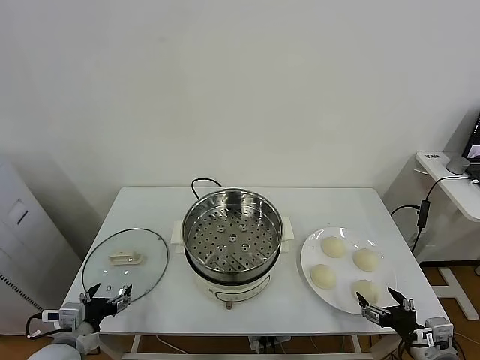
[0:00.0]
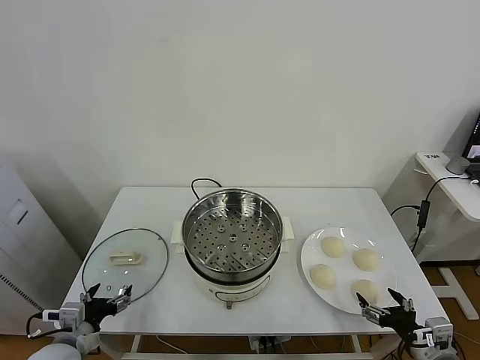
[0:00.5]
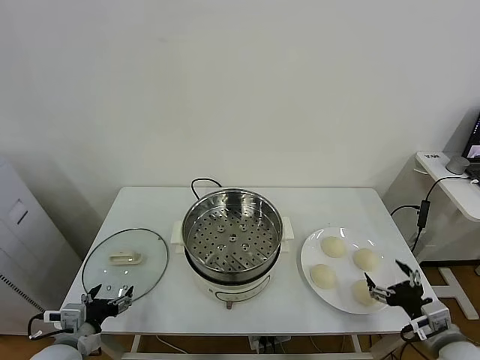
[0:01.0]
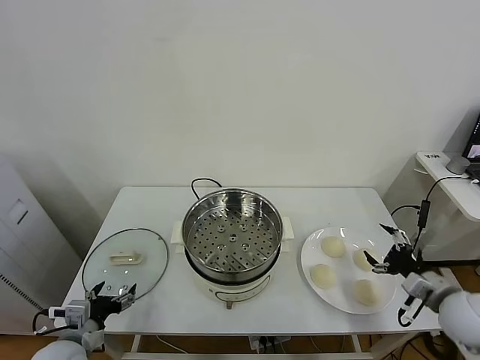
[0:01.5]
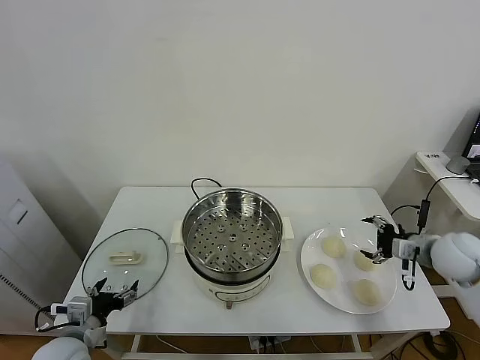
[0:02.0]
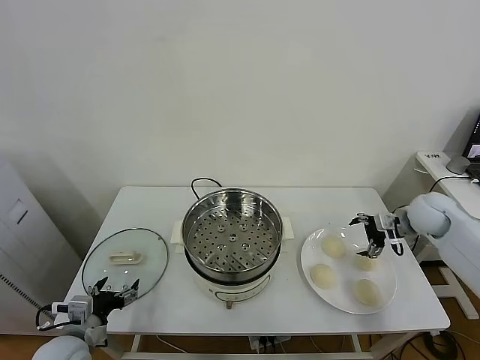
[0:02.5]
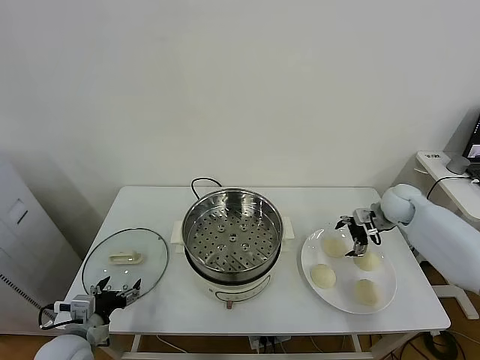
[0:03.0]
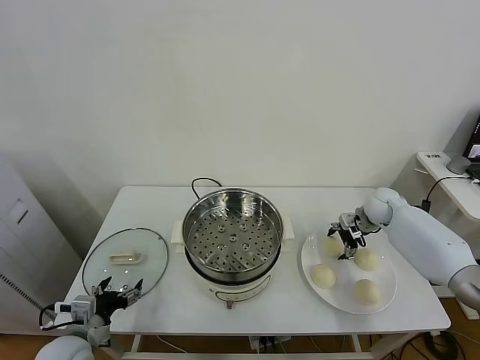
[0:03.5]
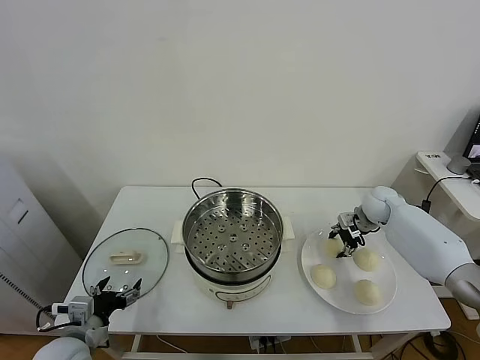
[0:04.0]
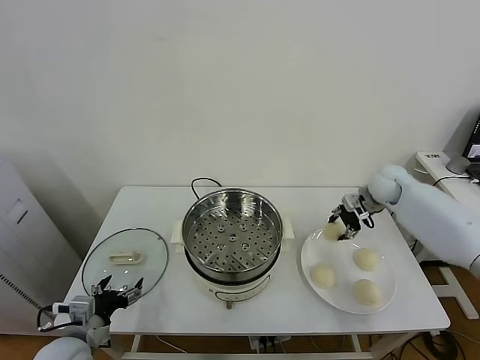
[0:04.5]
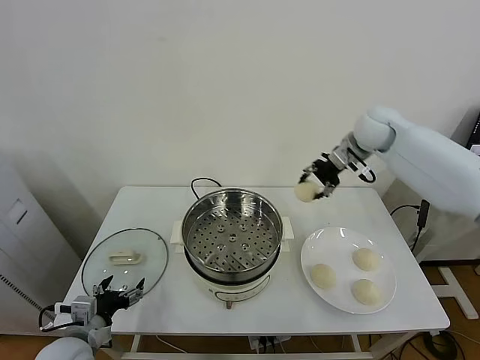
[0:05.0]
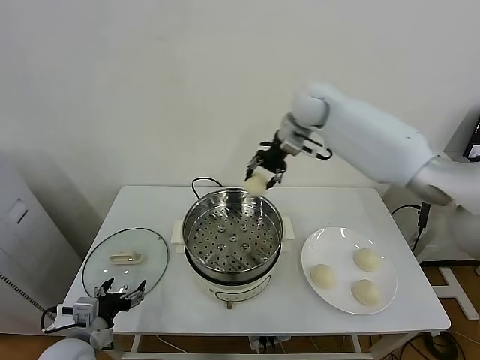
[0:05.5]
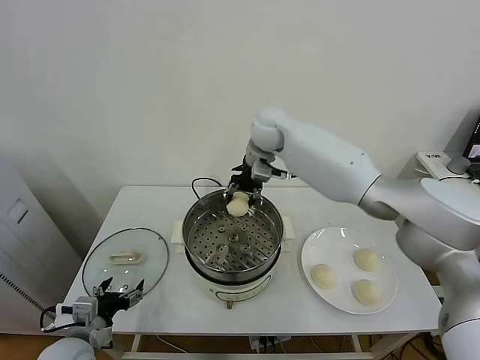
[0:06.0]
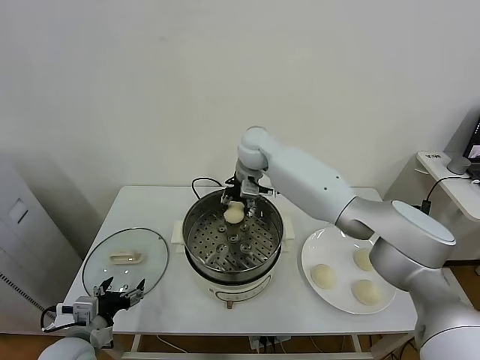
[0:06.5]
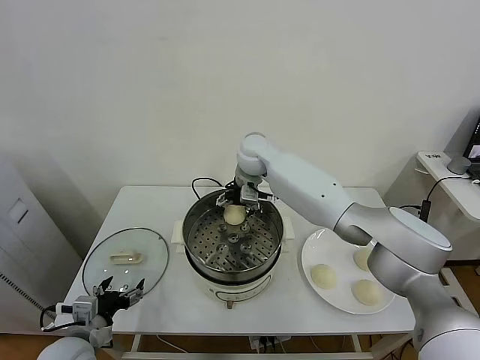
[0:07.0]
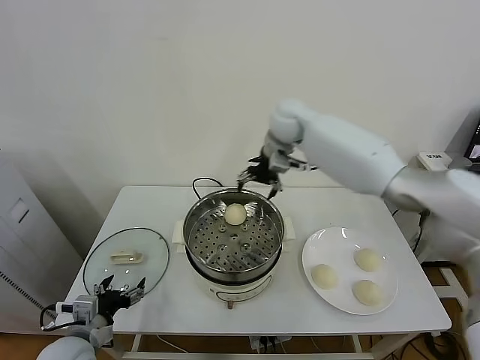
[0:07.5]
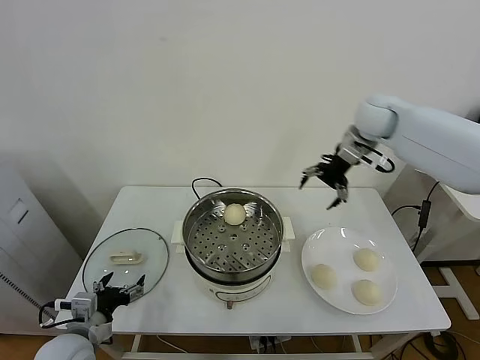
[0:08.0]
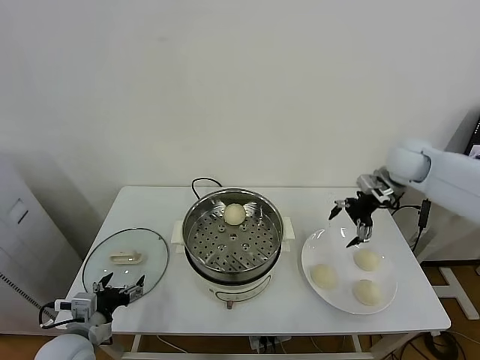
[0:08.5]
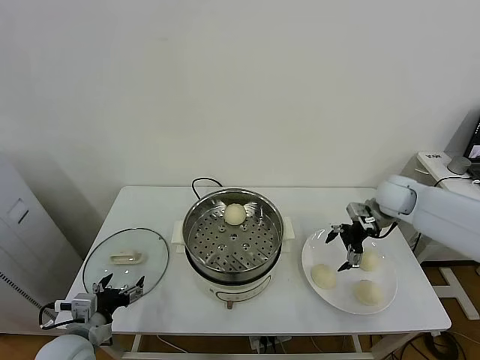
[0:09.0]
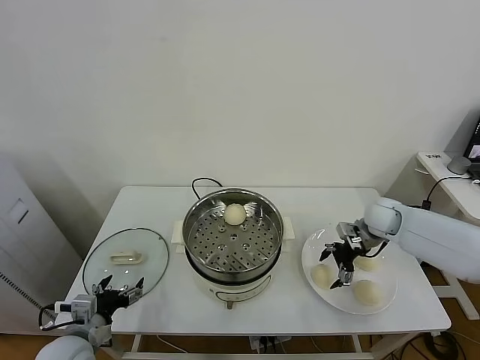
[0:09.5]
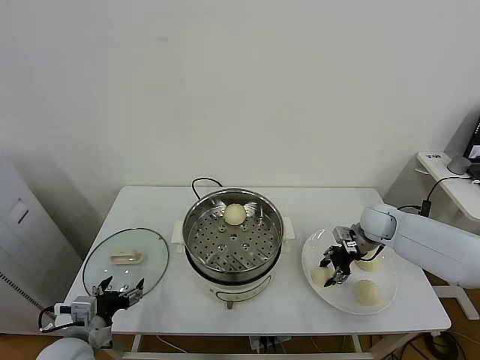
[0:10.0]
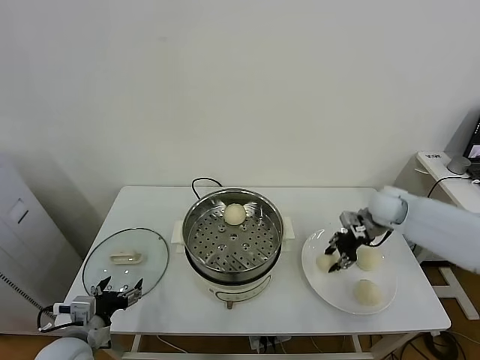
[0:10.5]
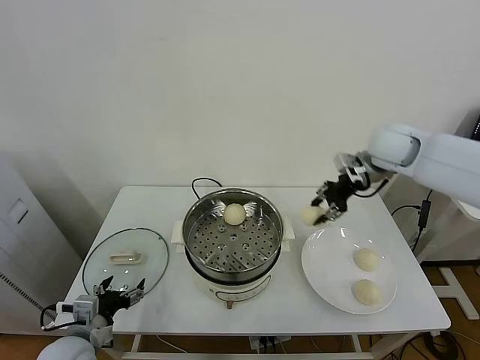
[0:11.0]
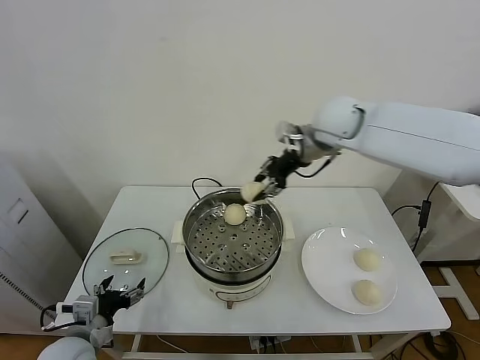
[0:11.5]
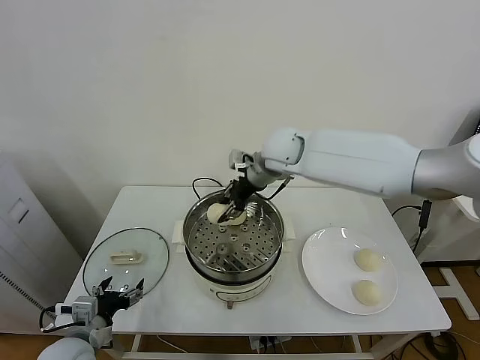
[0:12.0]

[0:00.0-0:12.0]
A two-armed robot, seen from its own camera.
Task of the whole recording: take steamed baozi put them in steamer.
Step, 0.0 to 3.5 s: Grasp the baozi in the plate with right gripper.
Step, 4.0 to 6.5 s: Place the baozi on the steamer with right gripper.
Step, 7.0 to 9.5 s: Grasp the baozi in the plate with right gripper.
2.0 to 4.0 s: The right gripper is displaced forward by some 15 cm, and closes up.
4.0 to 6.0 s: The right gripper is displaced to the left and upward by about 40 cm.
6.0 to 8.0 s: The right gripper travels to the right by about 25 cm, and opens its fingers.
8.0 to 10.0 s: The right gripper shifts approximately 25 cm downward, and closes its fingers.
10.0 to 12.0 s: The right gripper moves to the left and upward, about 35 cm.

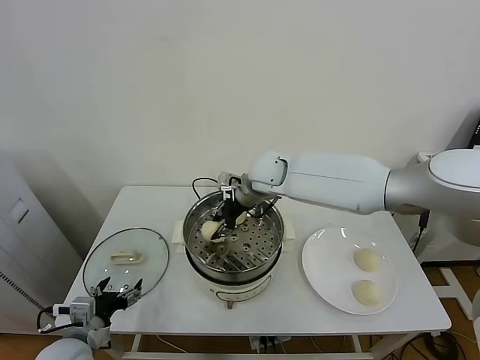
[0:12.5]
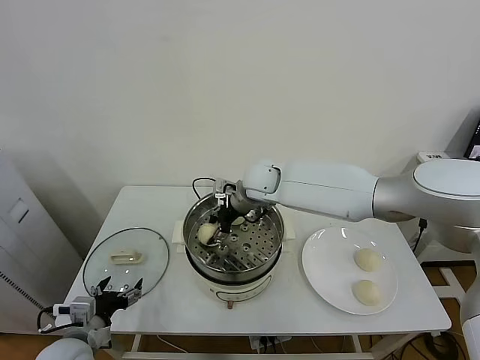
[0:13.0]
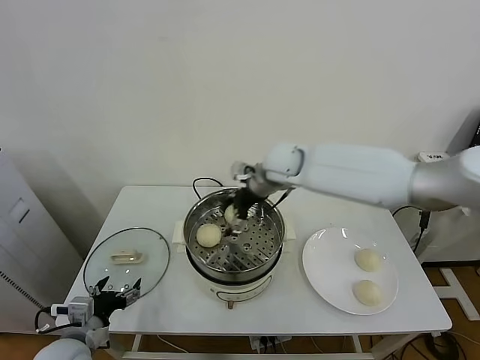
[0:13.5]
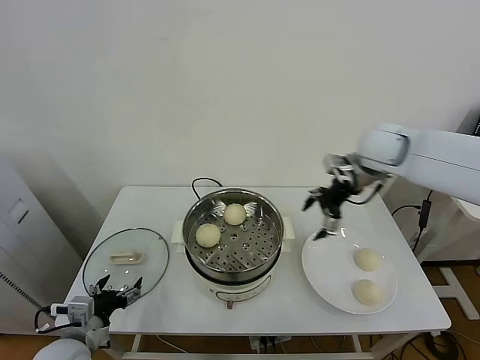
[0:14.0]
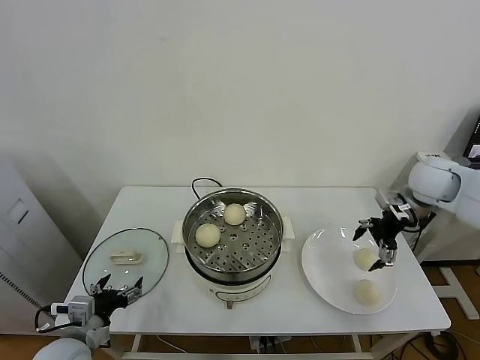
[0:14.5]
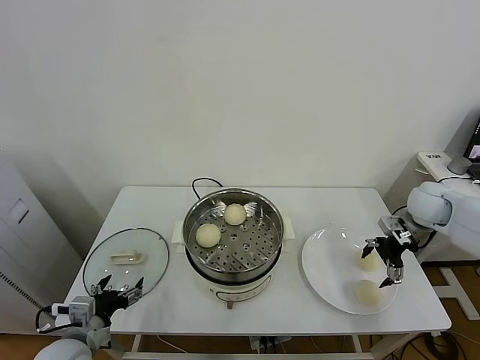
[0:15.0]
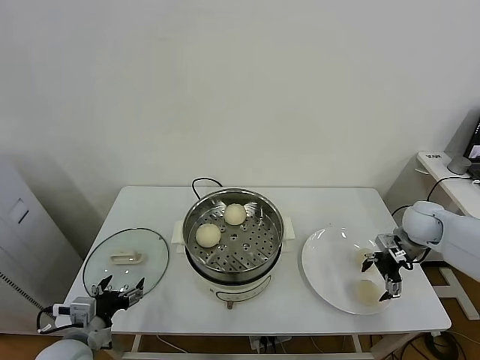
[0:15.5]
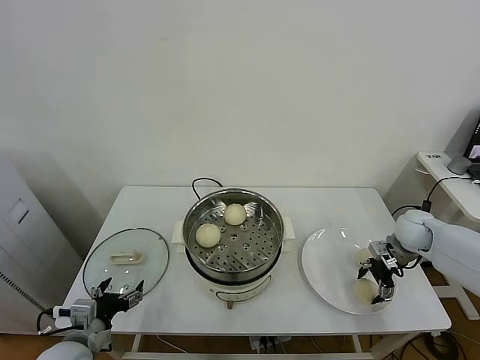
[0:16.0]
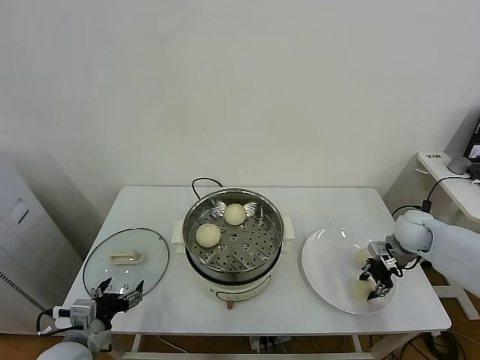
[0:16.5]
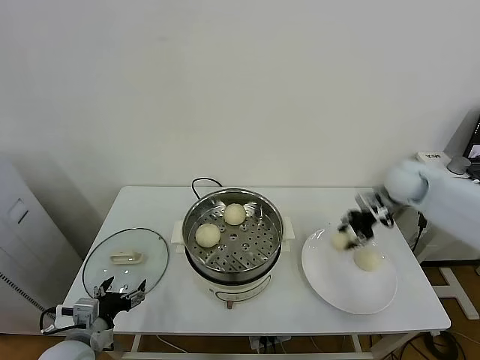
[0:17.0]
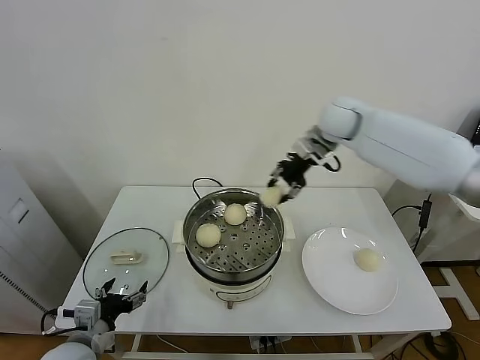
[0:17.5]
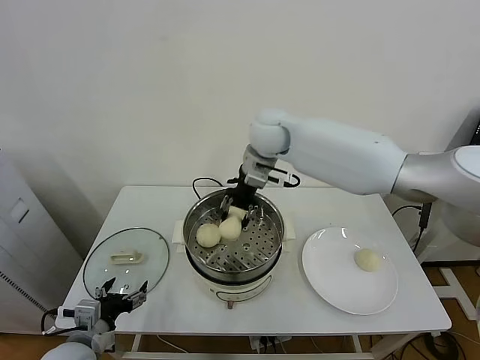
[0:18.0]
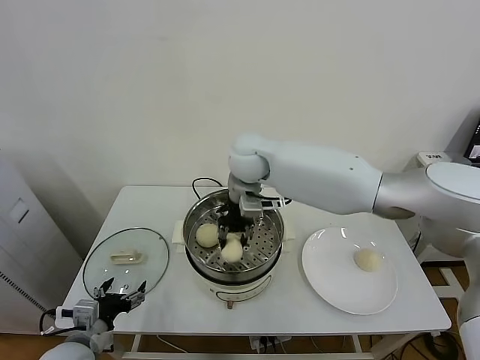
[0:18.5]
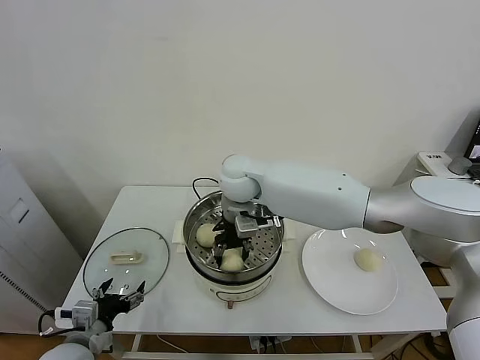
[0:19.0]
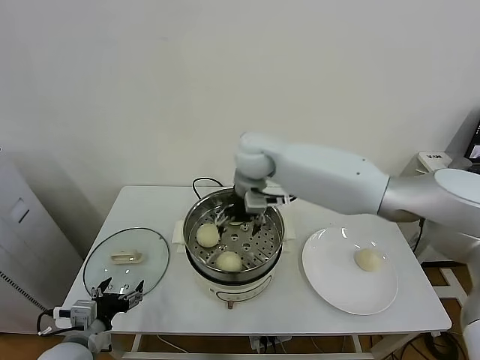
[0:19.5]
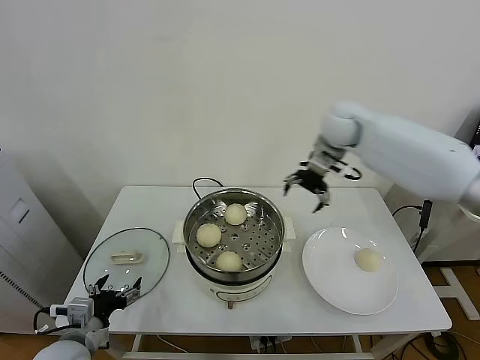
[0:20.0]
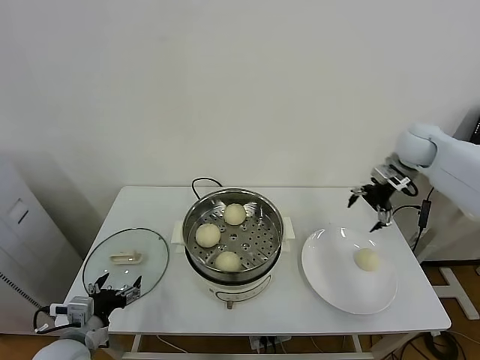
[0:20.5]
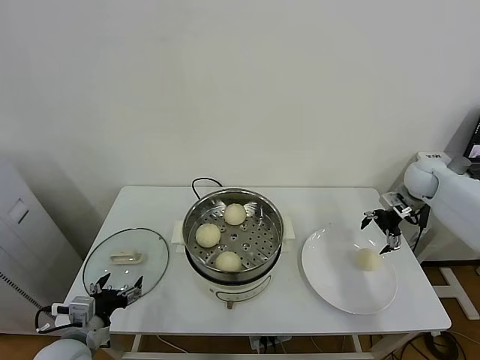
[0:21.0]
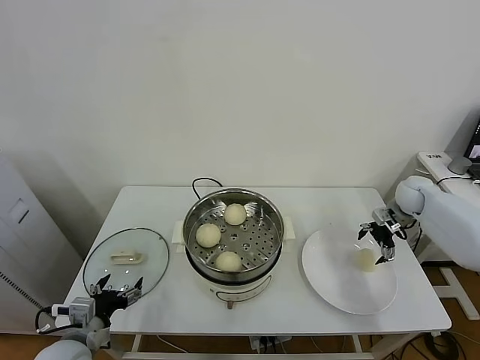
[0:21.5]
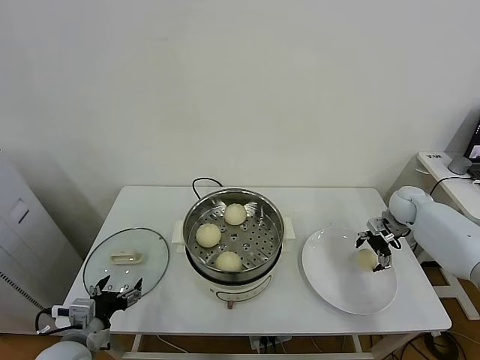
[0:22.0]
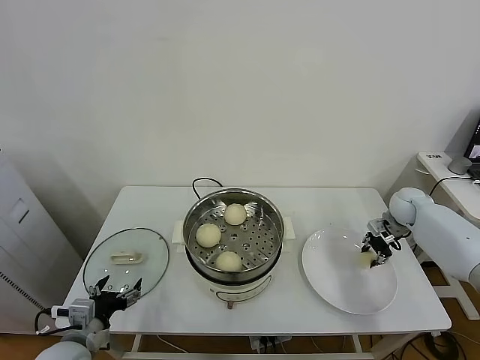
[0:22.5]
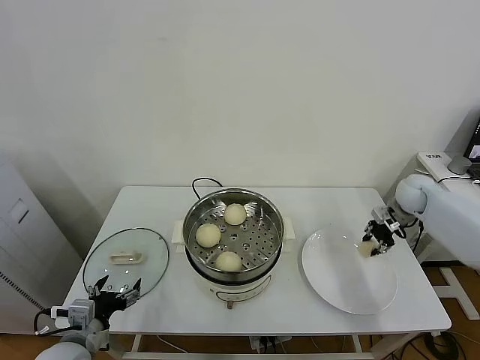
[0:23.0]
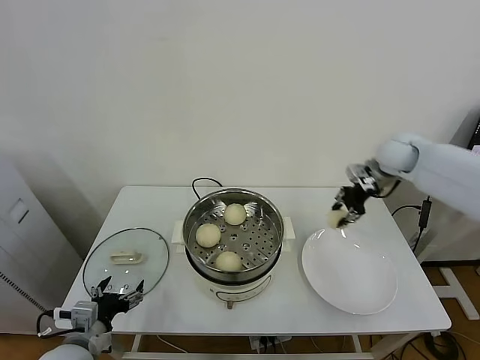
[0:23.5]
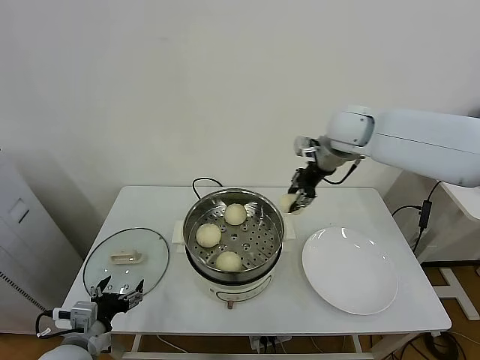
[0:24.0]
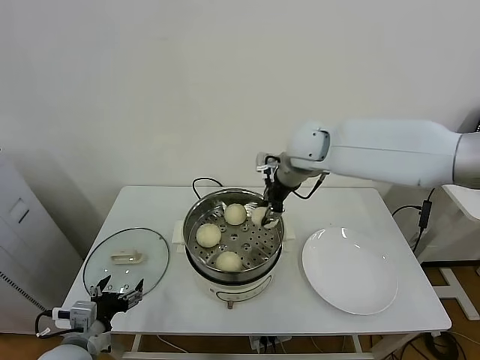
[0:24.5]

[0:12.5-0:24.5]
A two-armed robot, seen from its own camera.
Task of the whole recording: take steamed baozi put them in steamer.
Step, 13.5 to 16.0 s: Grasp the baozi in the plate with right gripper.
Step, 16.5 to 19.0 s: Place the baozi on the steamer with right gripper.
Step, 19.5 to 22.0 s: Grasp the baozi in the plate with right gripper.
12.5 to 14.5 s: The right gripper is displaced to the right by approximately 35 cm, and opens up.
14.5 to 16.5 s: The right gripper is displaced downward by roughly 15 cm, and closes up.
16.5 to 18.5 s: The right gripper is displaced to the left and upward by about 50 cm.
18.5 to 20.5 s: The right gripper shifts roughly 40 cm to the right, and opens its fingers.
20.5 to 22.5 s: The right gripper heads downward, covering approximately 20 cm, and closes its fingers.
22.5 to 24.5 s: The right gripper shifts approximately 40 cm to the left and upward.

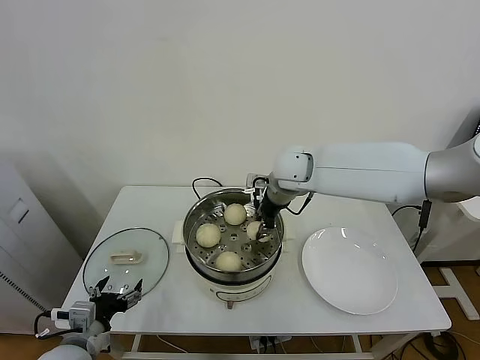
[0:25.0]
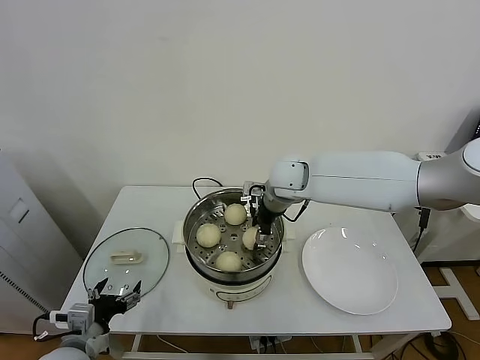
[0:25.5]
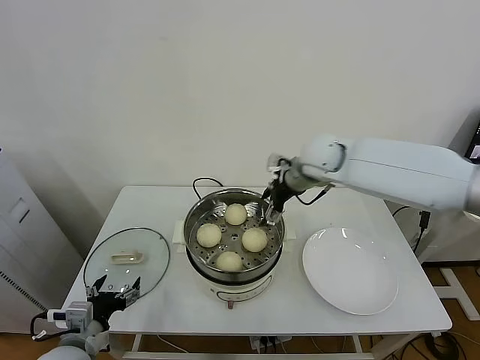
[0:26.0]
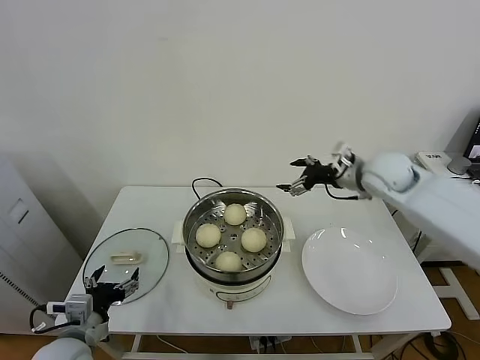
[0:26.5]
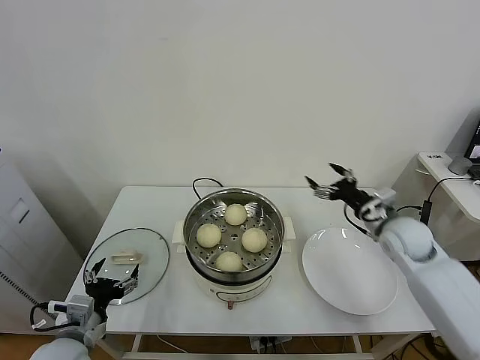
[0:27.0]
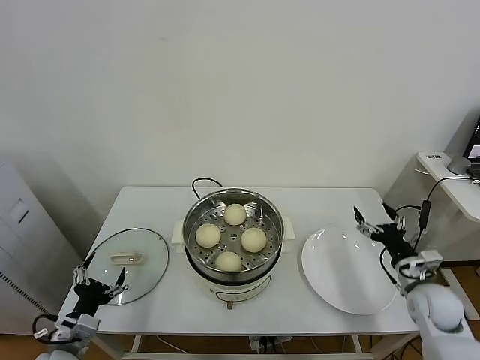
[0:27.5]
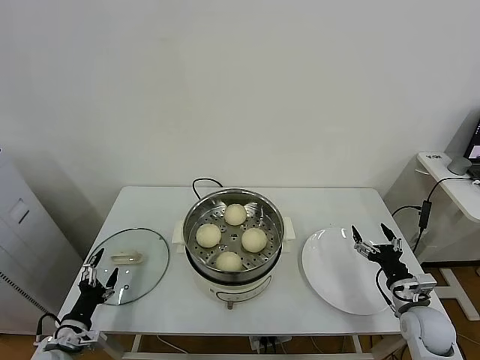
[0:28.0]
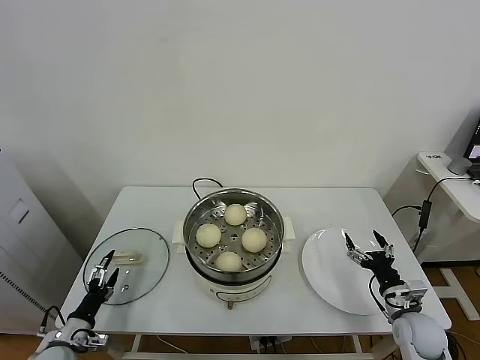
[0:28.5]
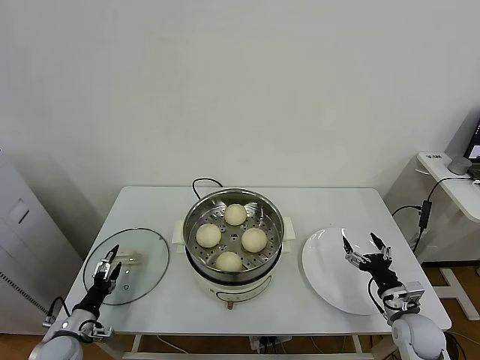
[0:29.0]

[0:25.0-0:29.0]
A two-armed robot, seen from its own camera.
Task of the whole recording: take steamed baozi put them in steamer.
25.0 to 27.0 s: The right gripper is displaced to the right, downward and backward by approximately 30 cm, and opens up.
27.0 to 29.0 s: The right gripper is displaced downward and backward by approximately 25 cm; the left gripper moves downward and to the left, about 15 cm.
